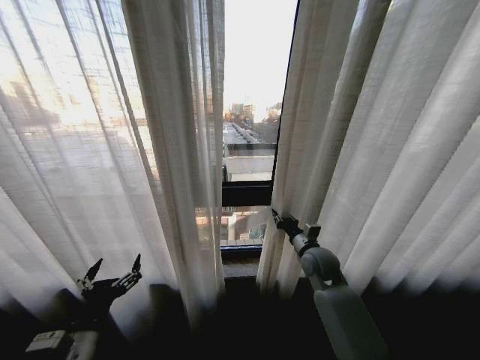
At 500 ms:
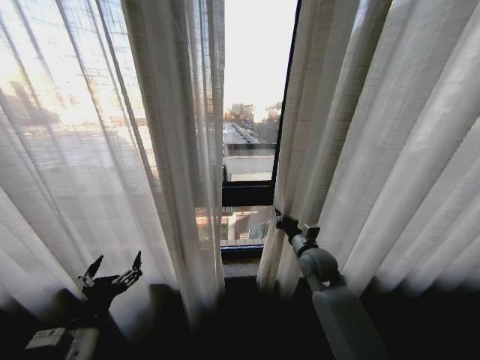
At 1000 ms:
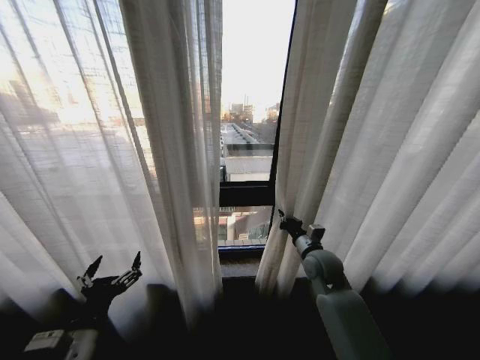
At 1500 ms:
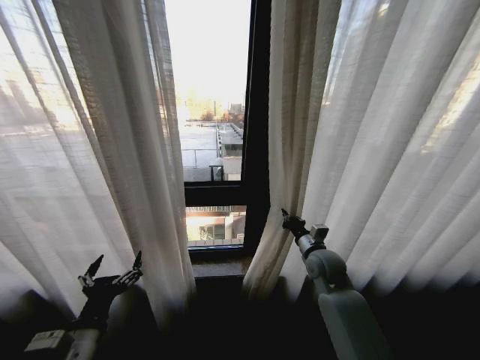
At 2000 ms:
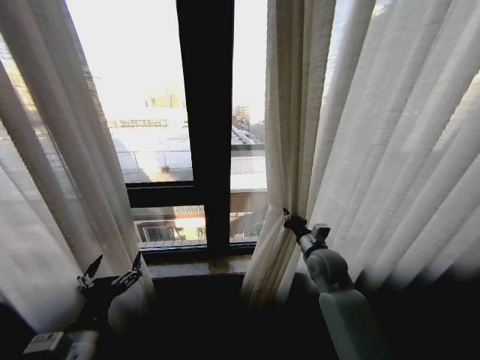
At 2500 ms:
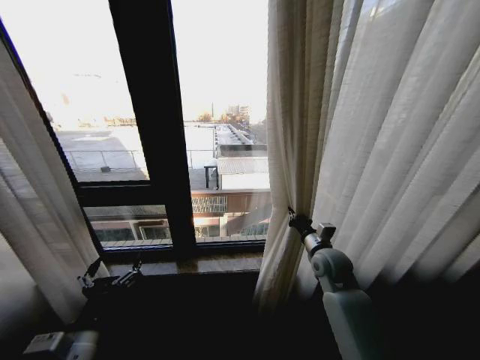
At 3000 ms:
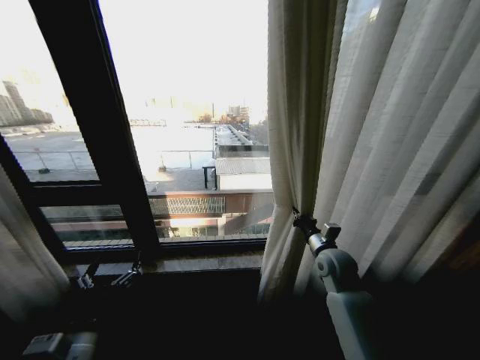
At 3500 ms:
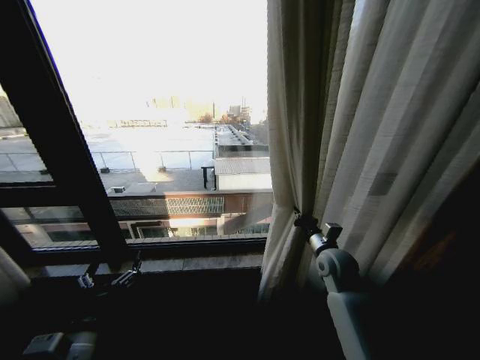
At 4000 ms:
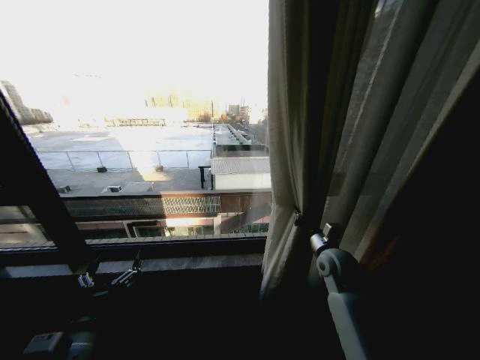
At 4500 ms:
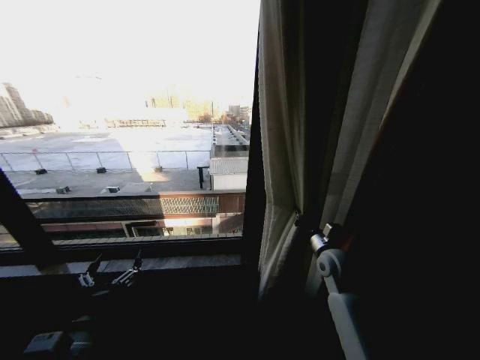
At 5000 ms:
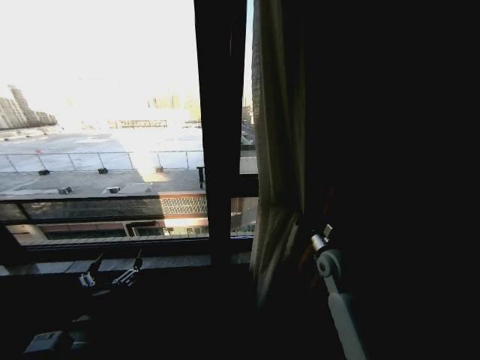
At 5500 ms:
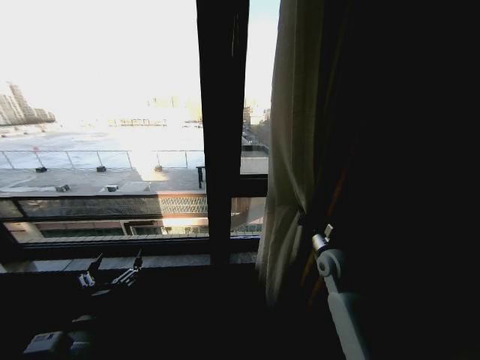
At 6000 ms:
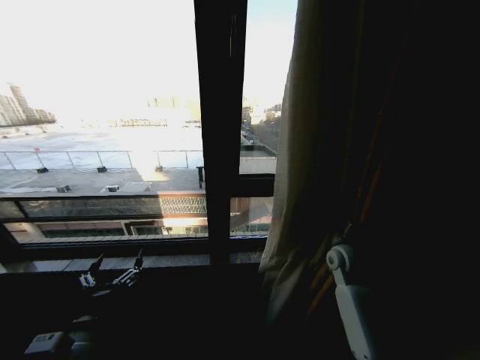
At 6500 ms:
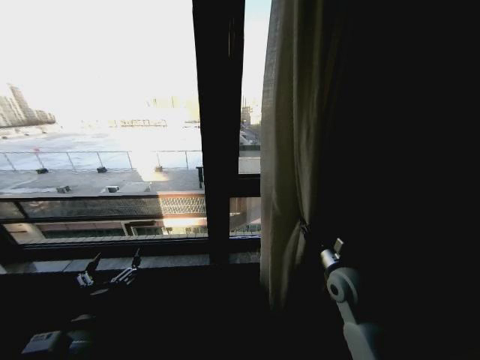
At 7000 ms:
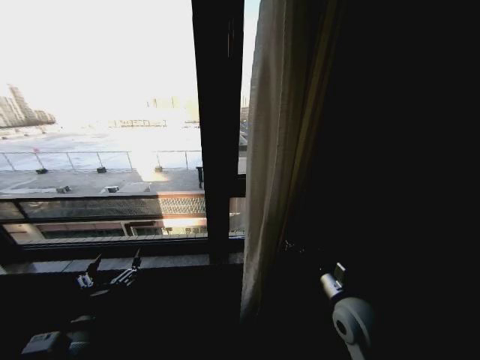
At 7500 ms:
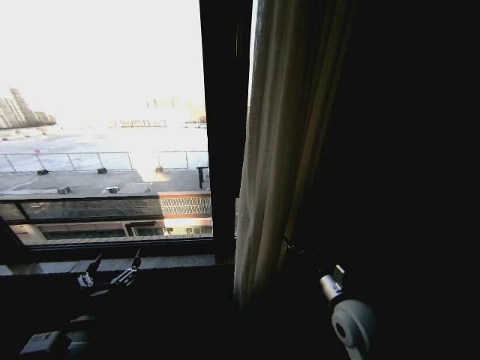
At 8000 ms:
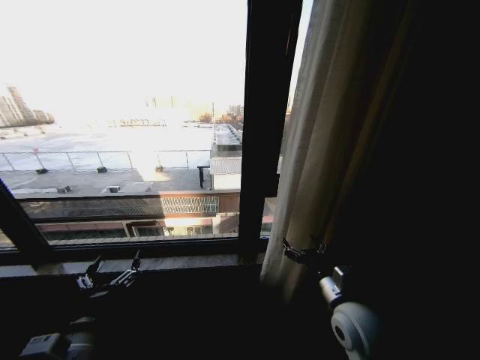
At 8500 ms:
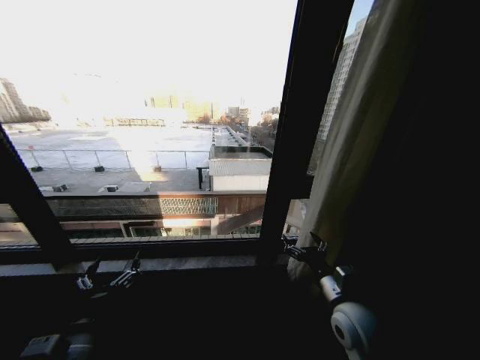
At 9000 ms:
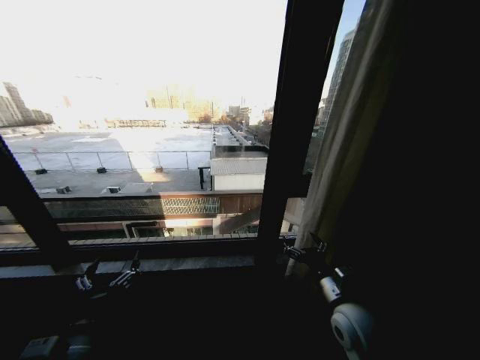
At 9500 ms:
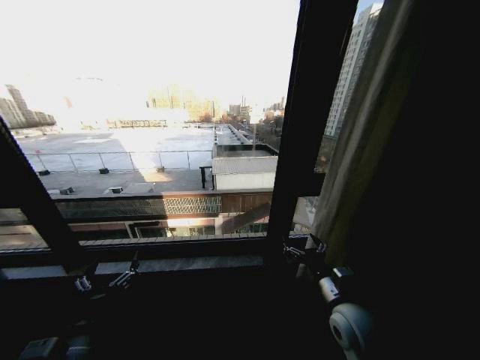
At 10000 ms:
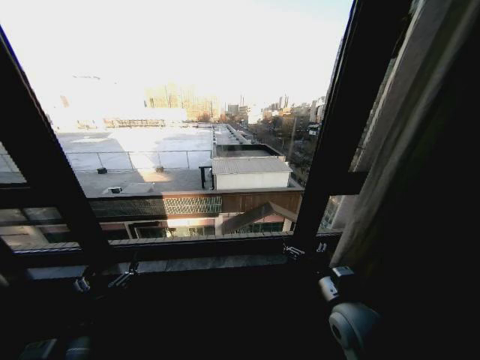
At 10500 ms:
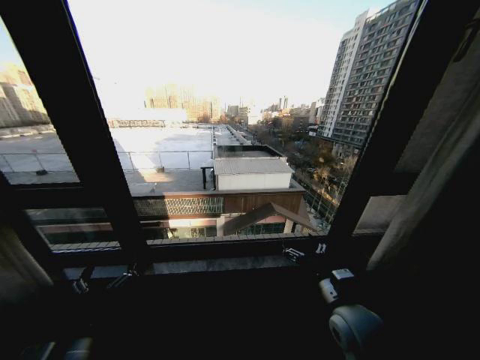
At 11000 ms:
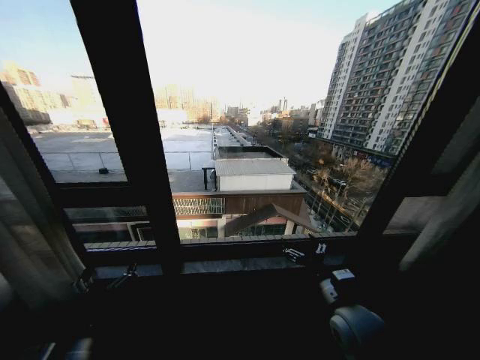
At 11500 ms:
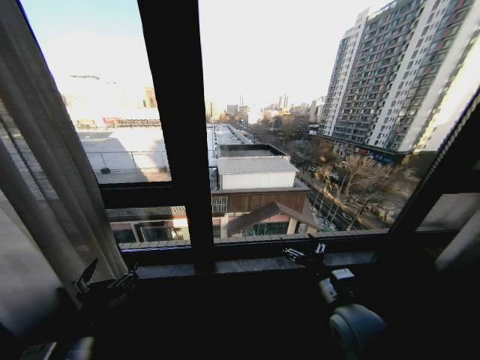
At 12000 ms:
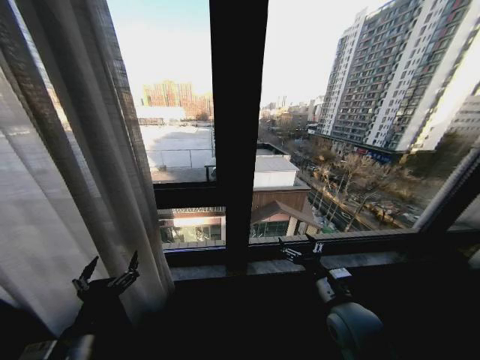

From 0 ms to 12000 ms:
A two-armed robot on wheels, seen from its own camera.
Task of the whole recording: Open the curtains by pulling them apart, changing their state from closed to fully open.
From 6000 ms to 8000 ms: The right gripper shifts approximately 20 cm backward and to the left, and opens up.

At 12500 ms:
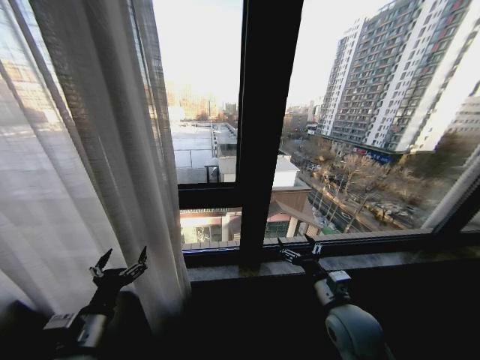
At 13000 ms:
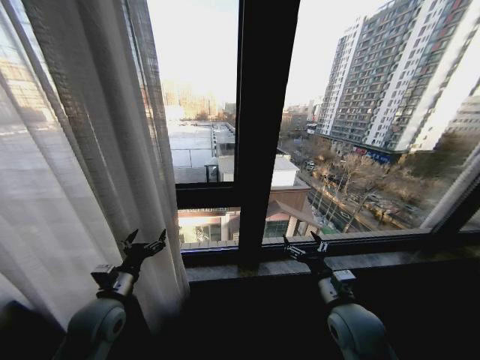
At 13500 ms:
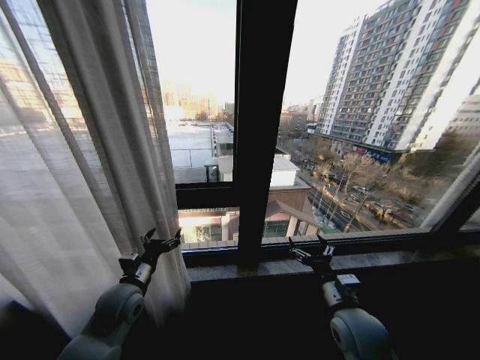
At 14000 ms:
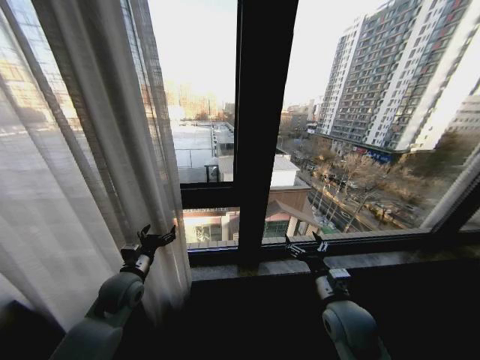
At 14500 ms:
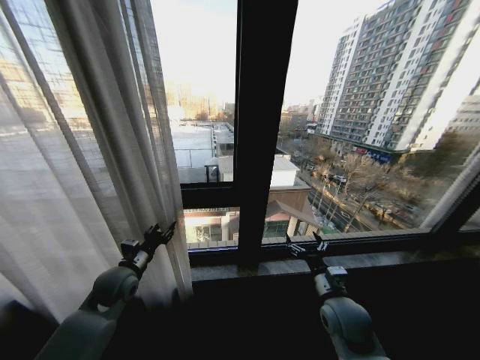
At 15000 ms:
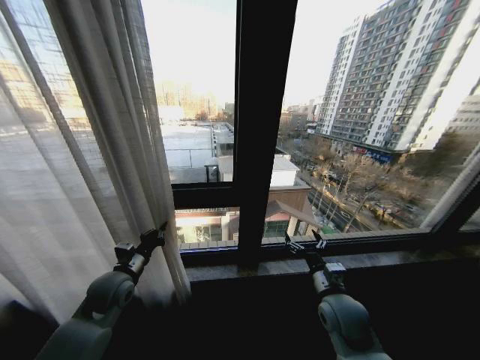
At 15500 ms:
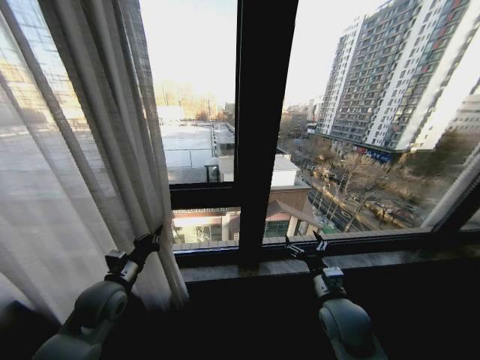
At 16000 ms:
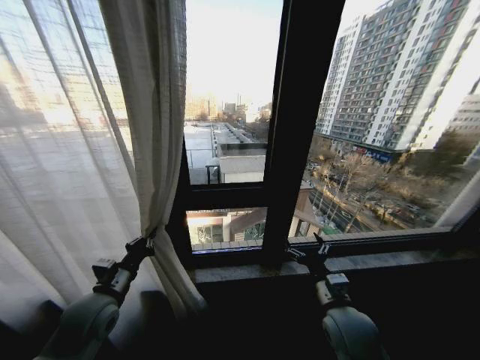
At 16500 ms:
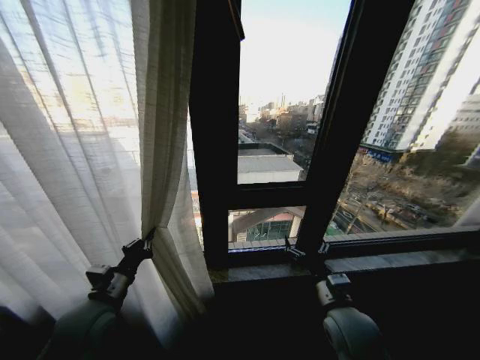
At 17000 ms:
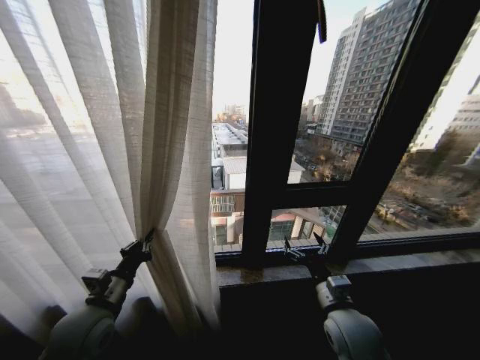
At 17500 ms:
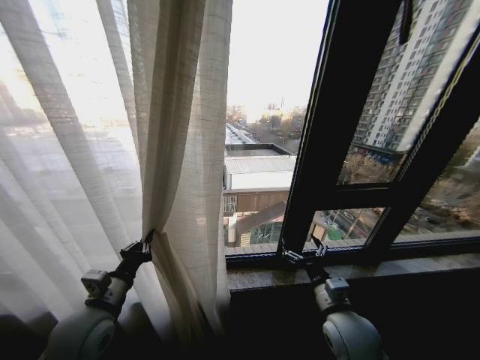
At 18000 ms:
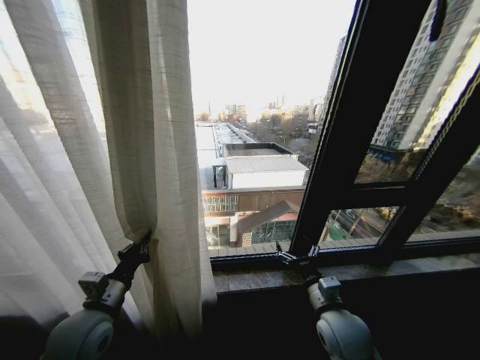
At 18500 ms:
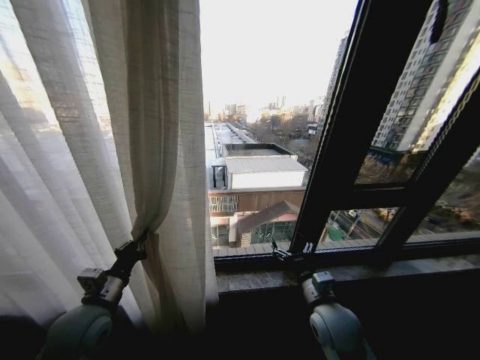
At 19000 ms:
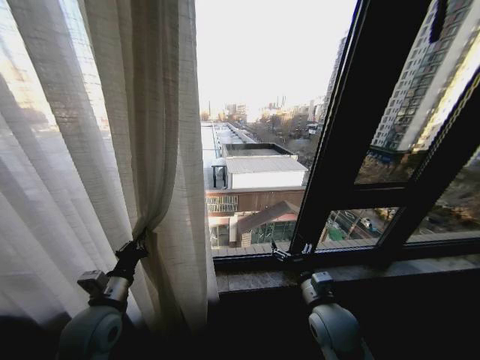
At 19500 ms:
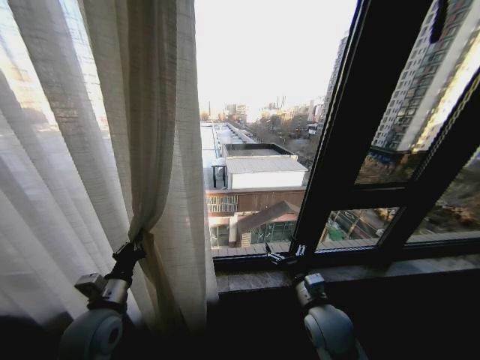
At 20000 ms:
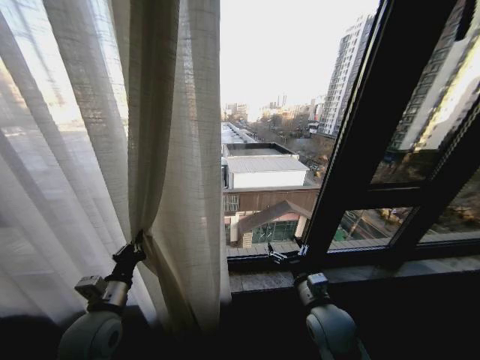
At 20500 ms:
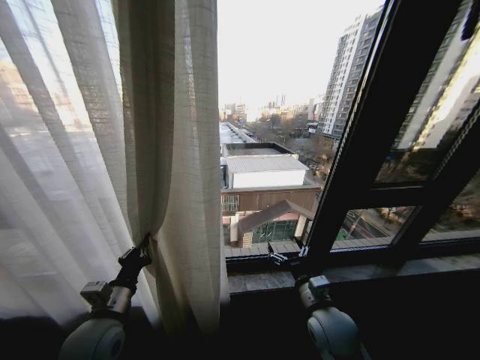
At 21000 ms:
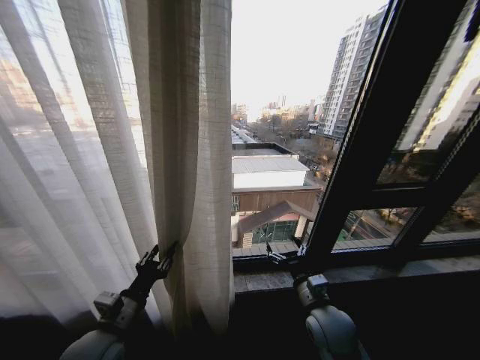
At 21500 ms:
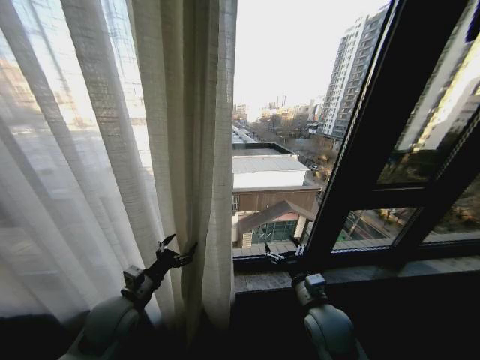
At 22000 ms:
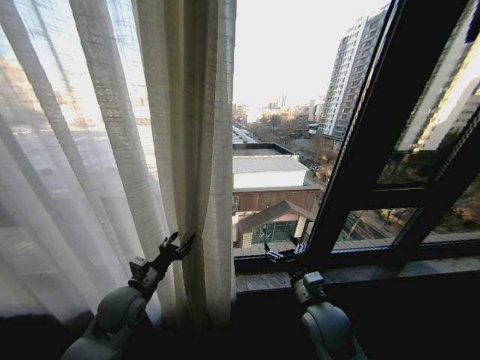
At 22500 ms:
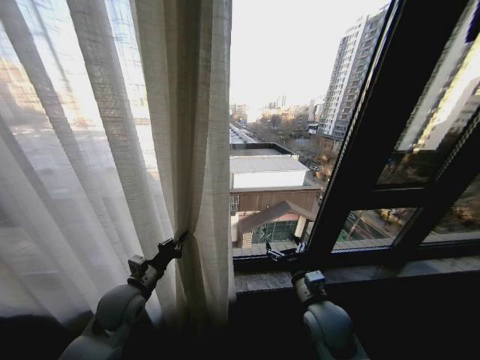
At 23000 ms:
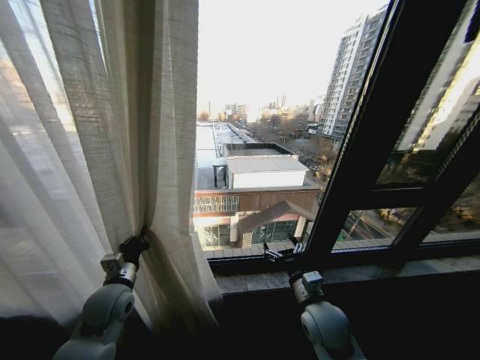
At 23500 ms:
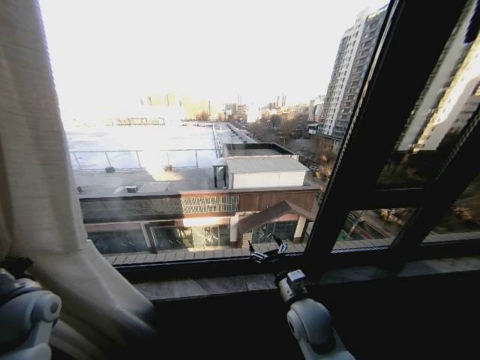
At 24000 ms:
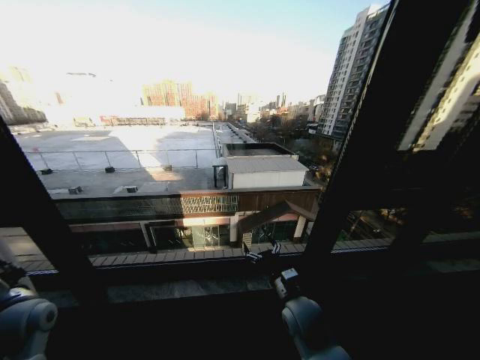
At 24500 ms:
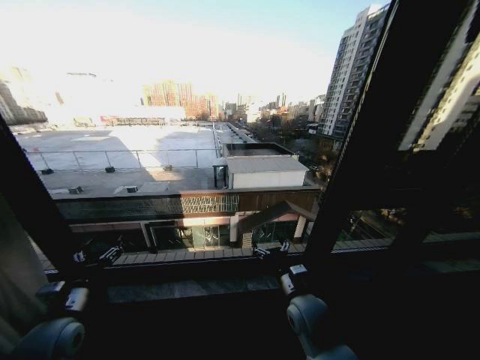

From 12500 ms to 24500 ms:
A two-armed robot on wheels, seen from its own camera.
Task of the whole recording: Open the curtains by pulling them apart, changing their state from closed to fully open.
From 12500 ms to 14500 ms: The left gripper is displaced forward by approximately 20 cm, and closes its fingers.
From 14500 ms to 16500 ms: The left gripper shifts approximately 10 cm backward, and closes up.
From 20500 ms to 22500 ms: The left gripper is displaced forward by about 10 cm, and opens, then closes once more.
From 22500 ms to 24500 ms: The left gripper moves to the left and backward, approximately 15 cm, and opens.

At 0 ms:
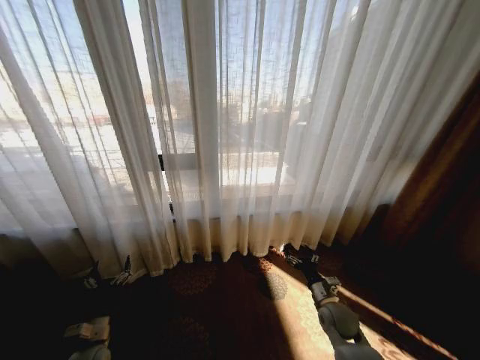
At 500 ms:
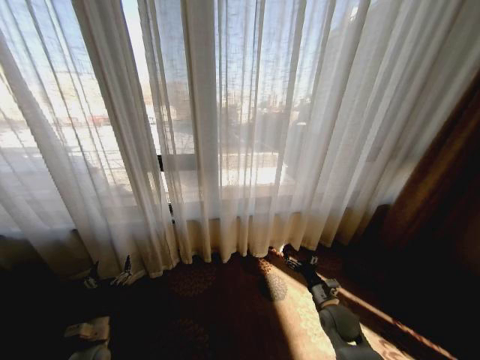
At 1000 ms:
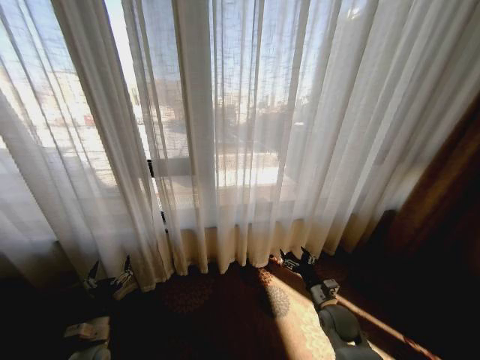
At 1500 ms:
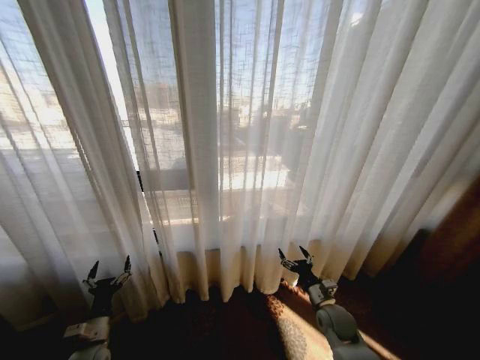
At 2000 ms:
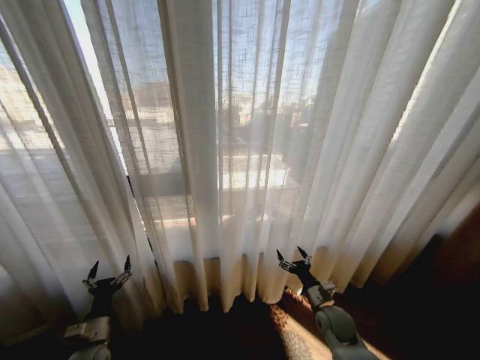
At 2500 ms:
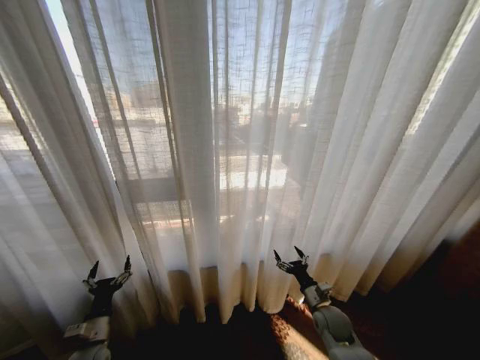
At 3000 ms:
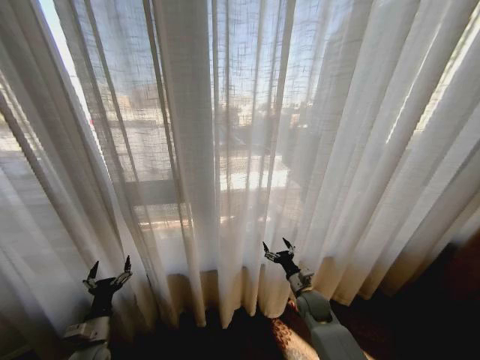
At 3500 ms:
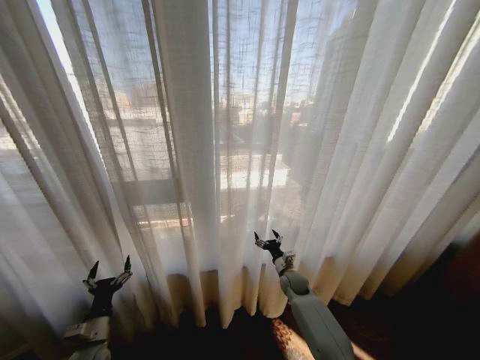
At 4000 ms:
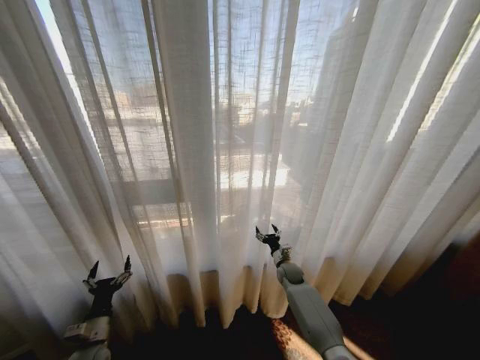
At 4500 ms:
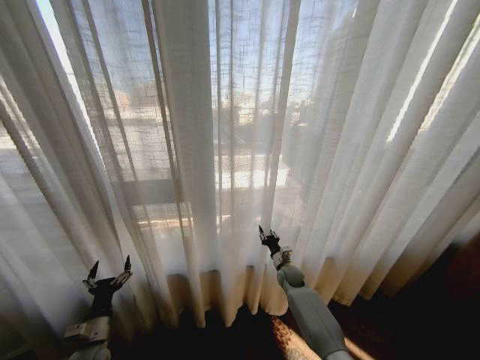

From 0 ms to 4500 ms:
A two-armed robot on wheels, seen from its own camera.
Task of the whole recording: Open the curtains by pulling them apart, changing their state from closed to fully open.
From 2000 ms to 4500 ms: The right gripper is displaced forward and to the left by roughly 20 cm, and closes up.
